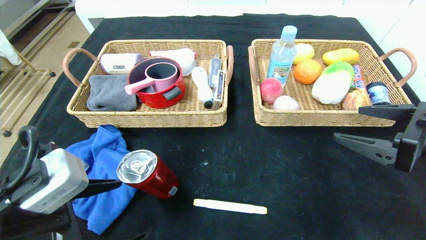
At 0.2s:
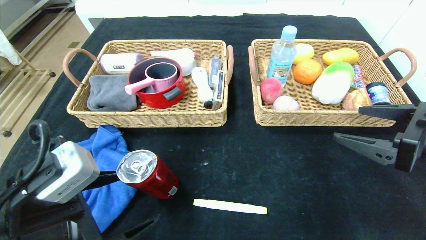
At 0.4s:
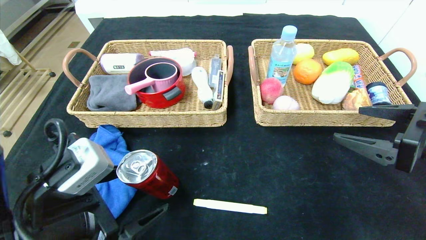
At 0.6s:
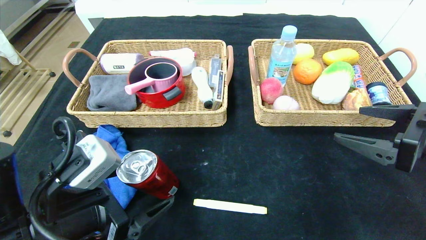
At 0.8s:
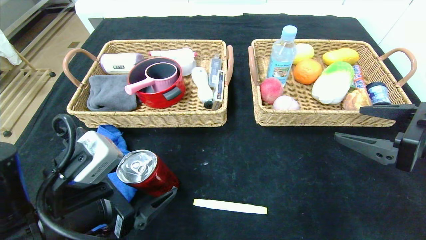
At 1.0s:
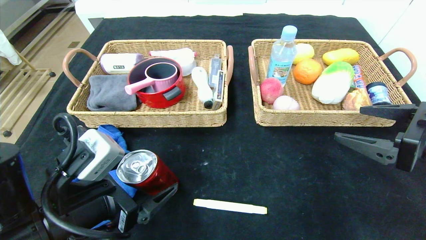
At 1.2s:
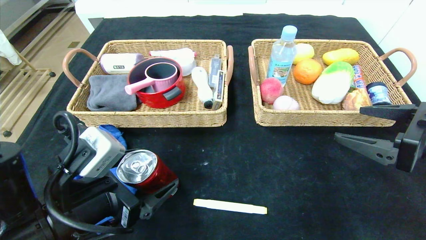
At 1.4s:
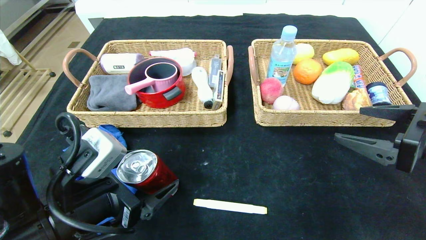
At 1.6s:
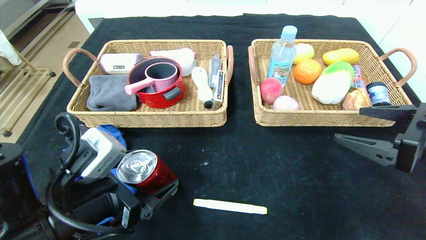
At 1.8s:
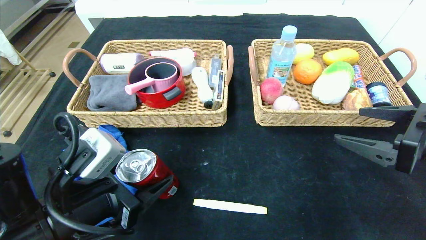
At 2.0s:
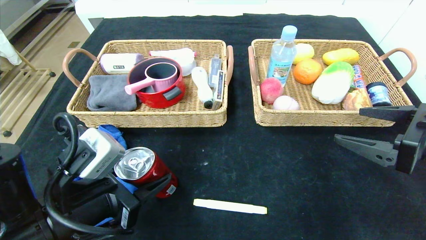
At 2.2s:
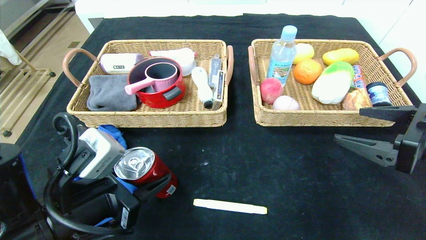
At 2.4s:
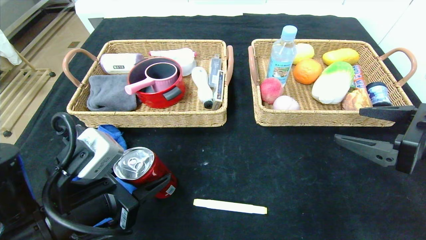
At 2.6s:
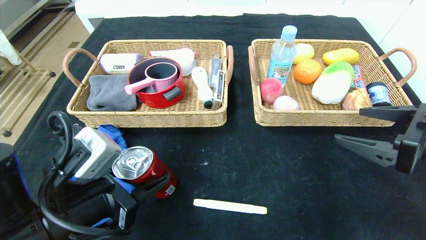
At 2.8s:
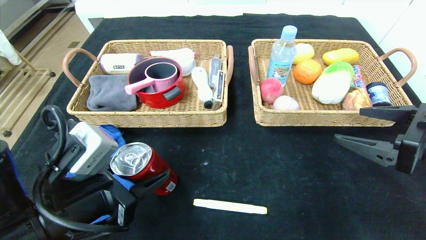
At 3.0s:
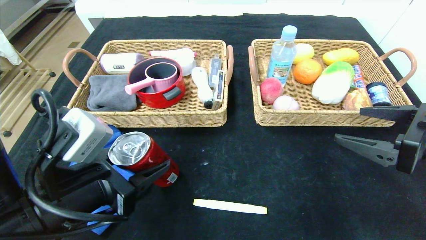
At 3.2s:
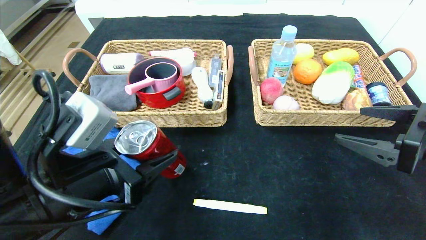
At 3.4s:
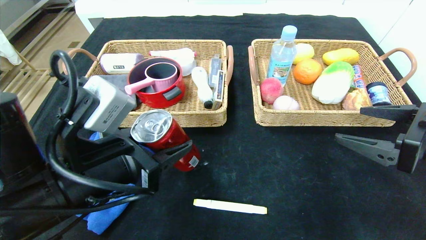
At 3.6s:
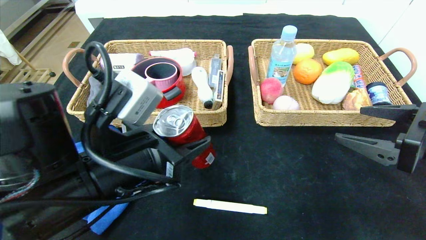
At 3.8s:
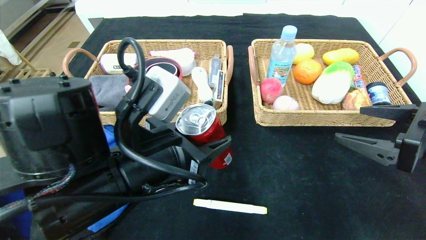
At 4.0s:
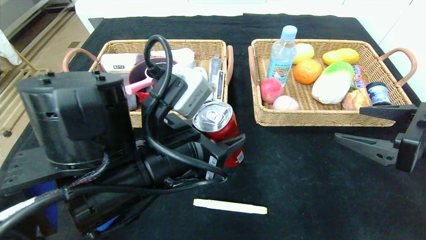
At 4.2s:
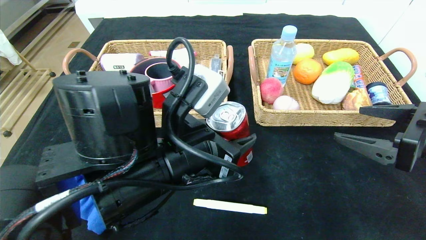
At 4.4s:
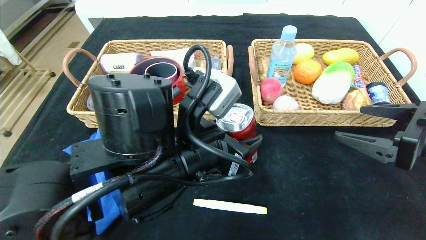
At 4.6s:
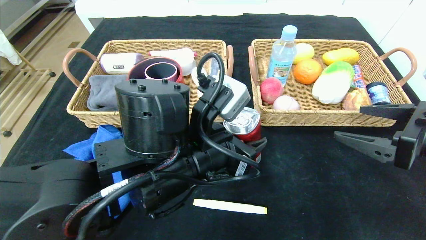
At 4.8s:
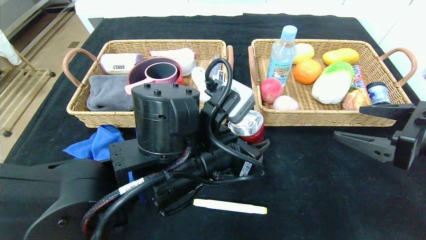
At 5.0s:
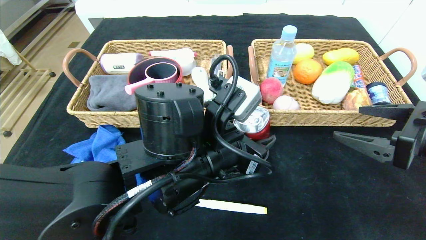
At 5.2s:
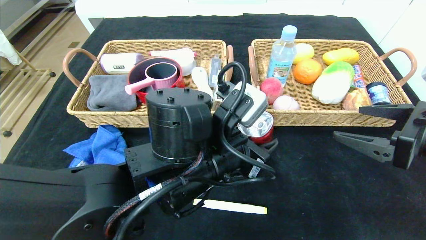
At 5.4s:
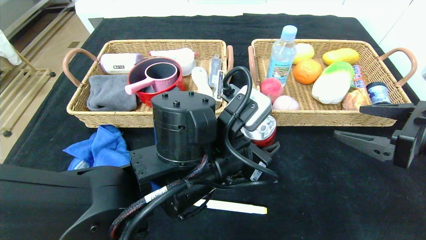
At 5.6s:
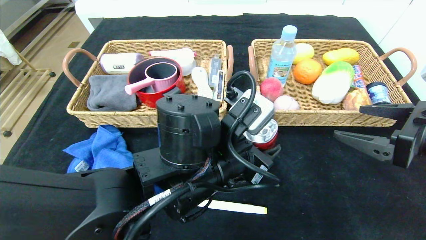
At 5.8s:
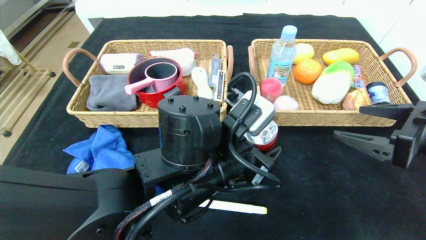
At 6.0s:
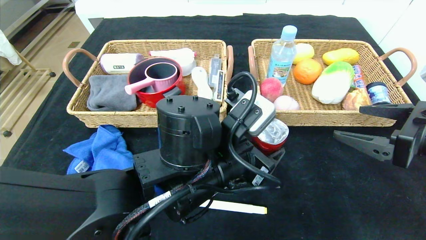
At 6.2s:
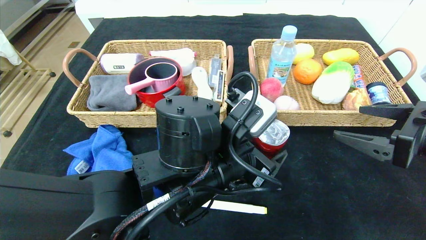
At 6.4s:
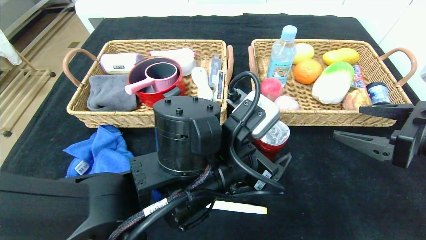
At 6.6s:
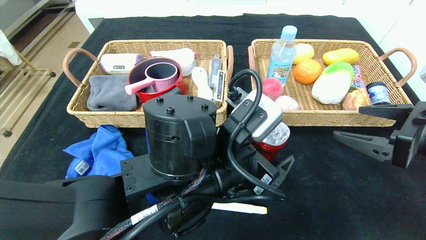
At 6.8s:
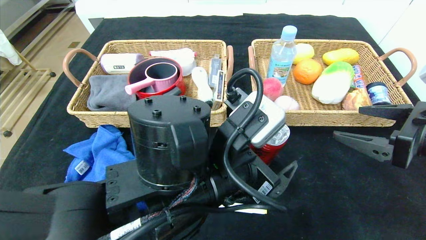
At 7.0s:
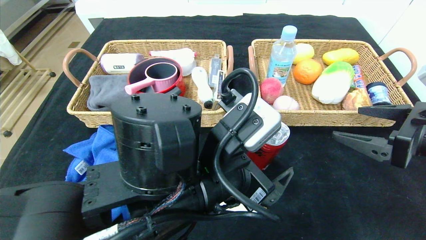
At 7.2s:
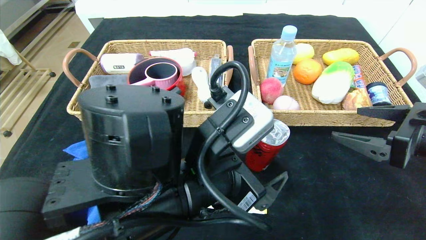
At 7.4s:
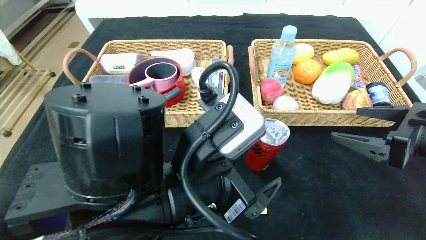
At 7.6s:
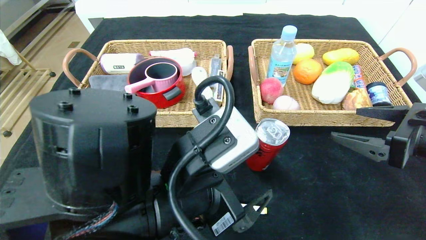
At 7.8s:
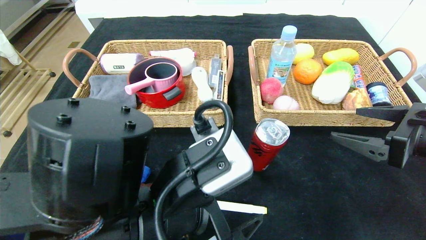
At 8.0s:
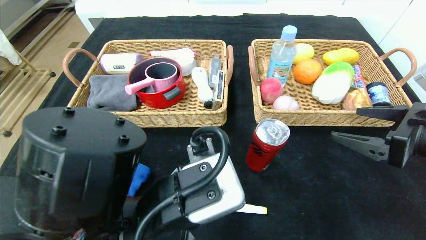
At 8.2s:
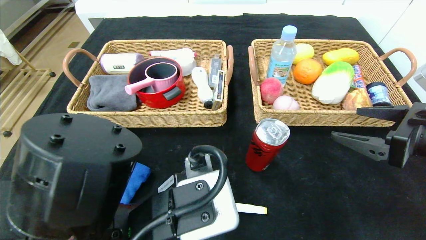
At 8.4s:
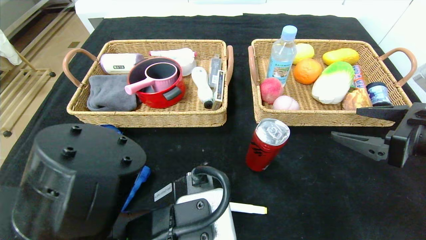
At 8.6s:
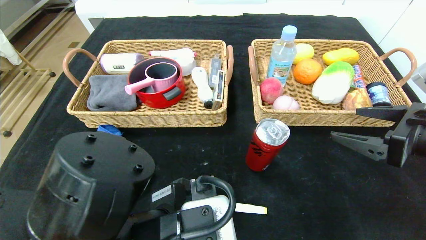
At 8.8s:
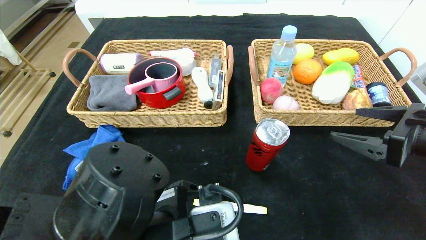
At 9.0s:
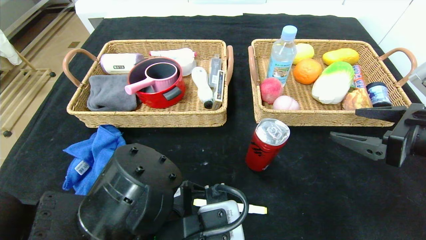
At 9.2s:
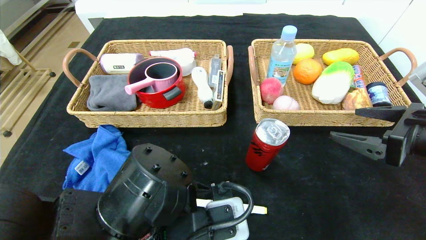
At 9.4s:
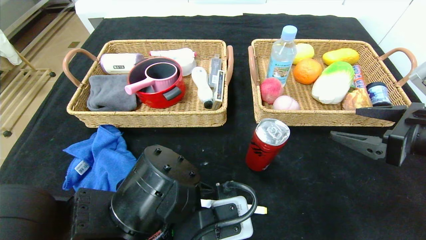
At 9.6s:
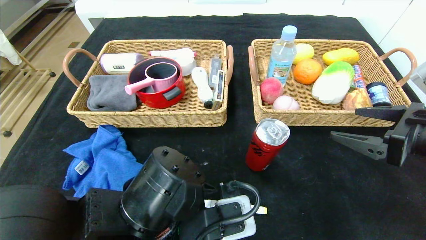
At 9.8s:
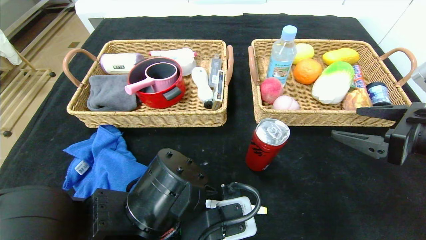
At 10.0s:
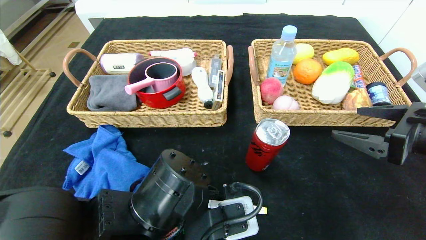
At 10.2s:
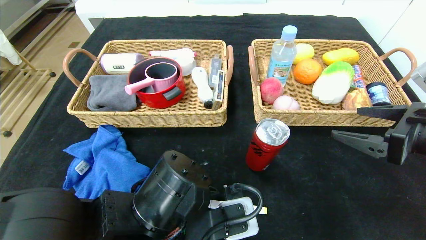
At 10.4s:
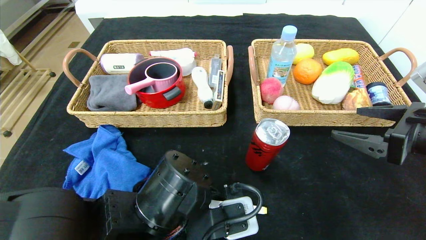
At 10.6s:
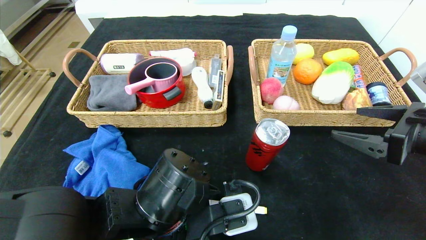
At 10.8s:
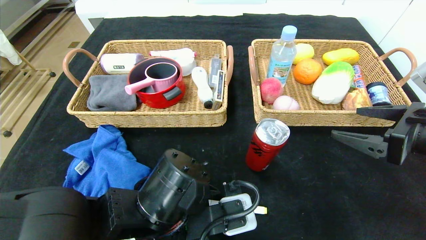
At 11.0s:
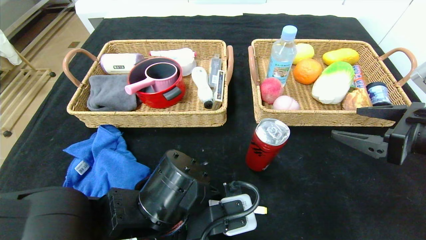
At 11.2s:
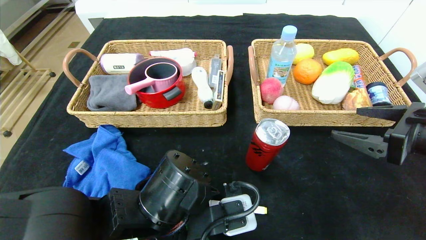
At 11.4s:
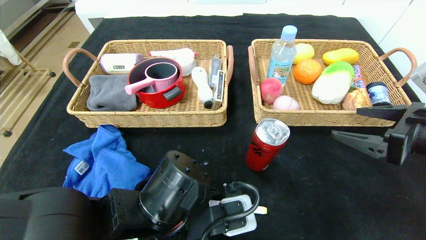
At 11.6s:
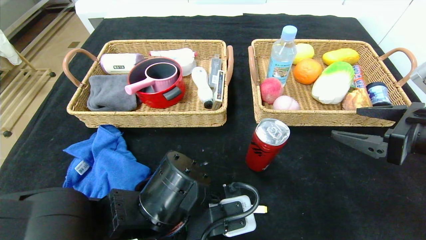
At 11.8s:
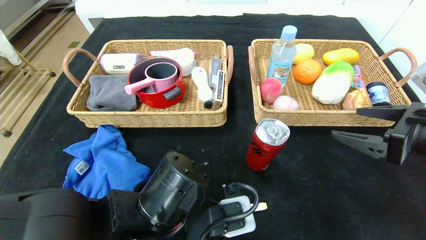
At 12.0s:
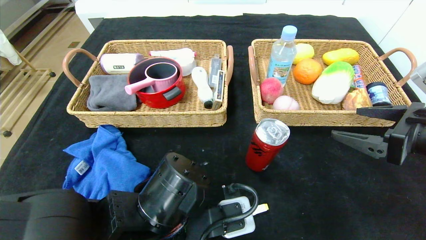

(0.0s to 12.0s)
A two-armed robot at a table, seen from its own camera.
Step, 0.0s - 6.4s: Place the canned cola in the center of the table.
0.0s - 1.6s: The left gripper ends up some 5 cm from where it was.
1.6s - 3.0s: The left gripper closes up.
3.0s - 4.4s: The left gripper goes some 15 cm to the right.
6.0s - 7.6s: The left gripper travels backward by roughly 5 cm.
7.6s - 9.0s: The left gripper shifts by some 5 cm.
9.0s - 10.4s: There are only small adjustments of the grippers.
10.4s - 12.0s: The left gripper closes up.

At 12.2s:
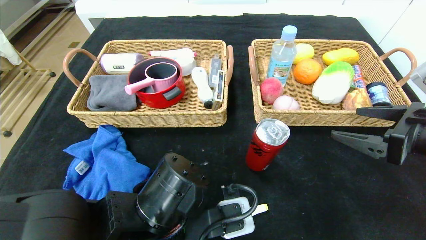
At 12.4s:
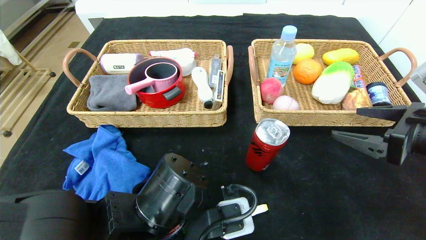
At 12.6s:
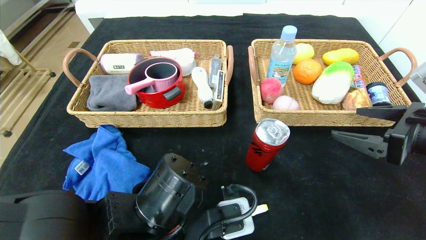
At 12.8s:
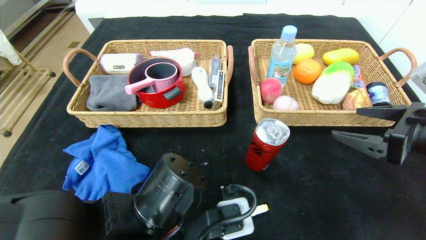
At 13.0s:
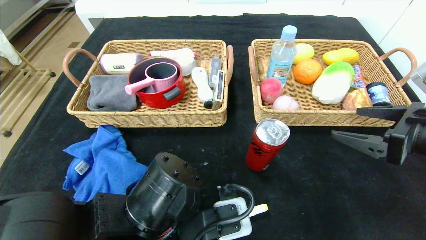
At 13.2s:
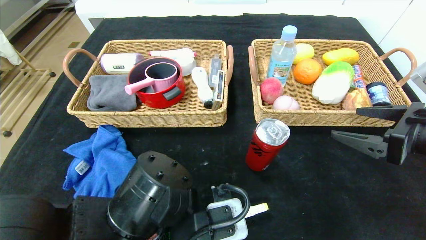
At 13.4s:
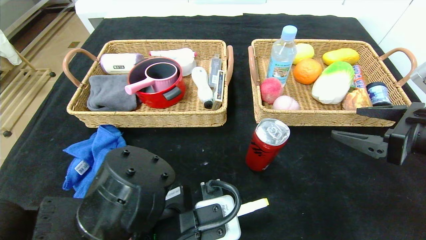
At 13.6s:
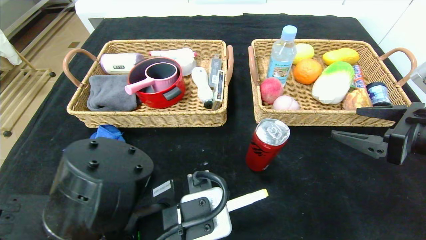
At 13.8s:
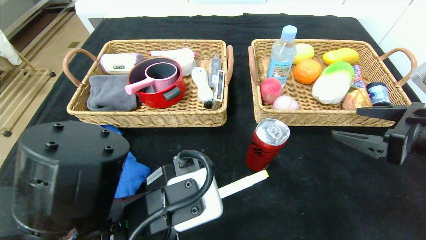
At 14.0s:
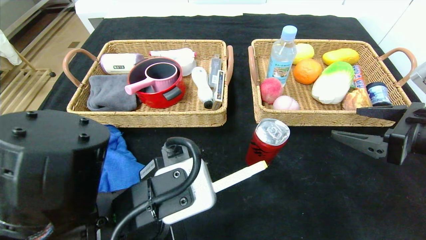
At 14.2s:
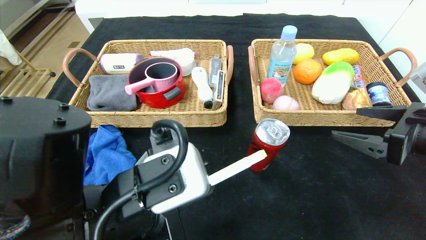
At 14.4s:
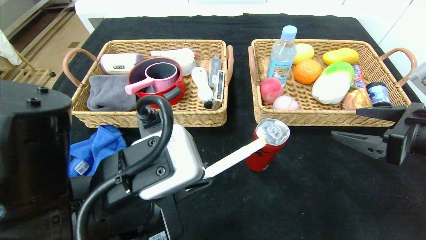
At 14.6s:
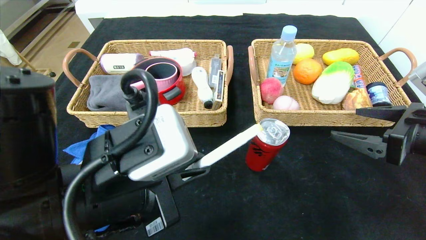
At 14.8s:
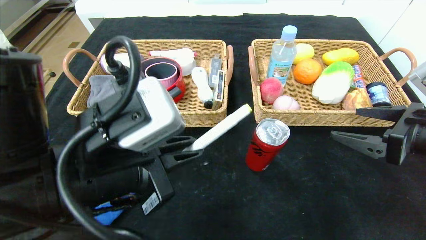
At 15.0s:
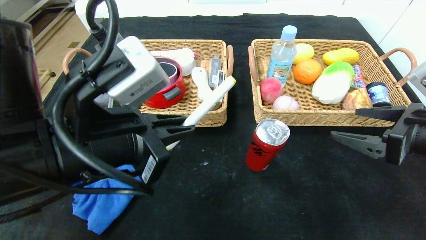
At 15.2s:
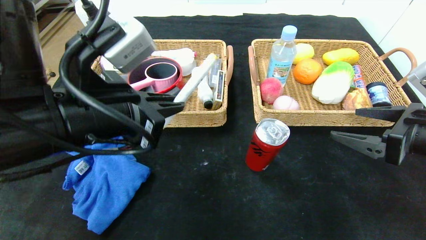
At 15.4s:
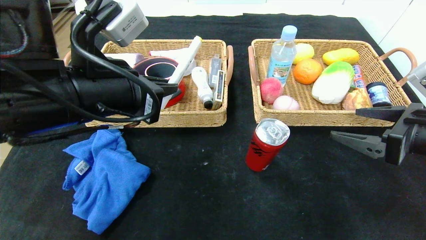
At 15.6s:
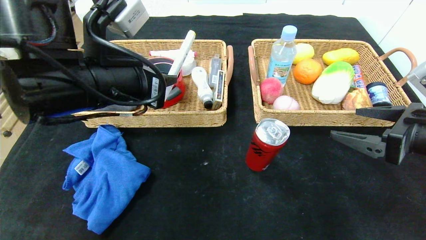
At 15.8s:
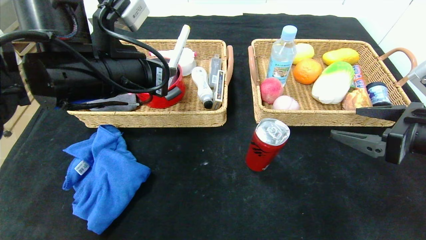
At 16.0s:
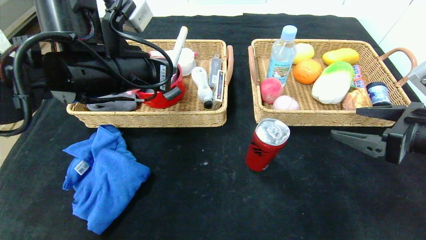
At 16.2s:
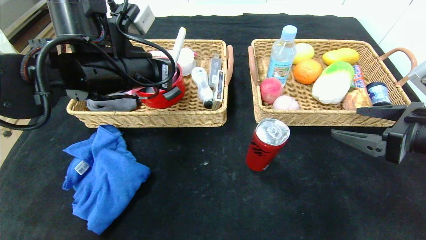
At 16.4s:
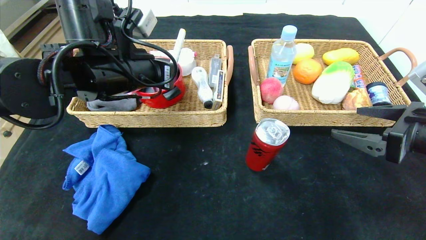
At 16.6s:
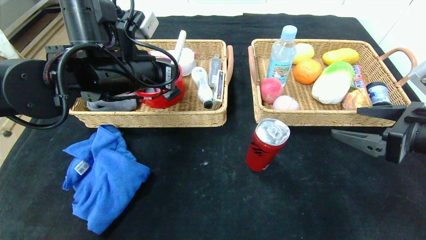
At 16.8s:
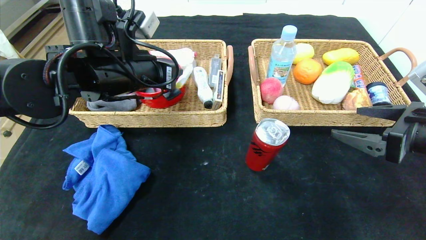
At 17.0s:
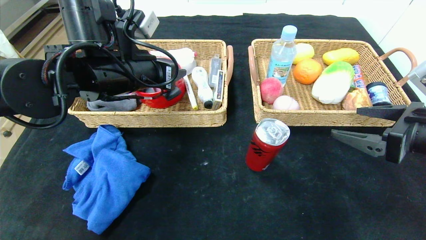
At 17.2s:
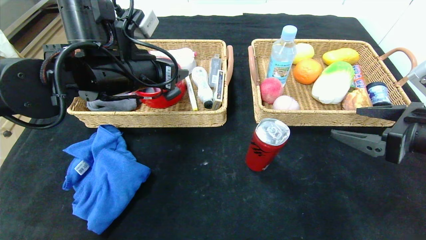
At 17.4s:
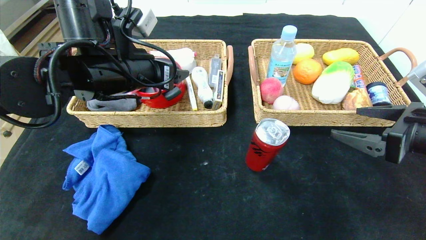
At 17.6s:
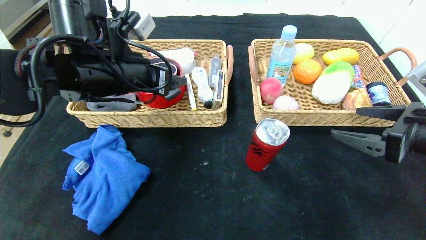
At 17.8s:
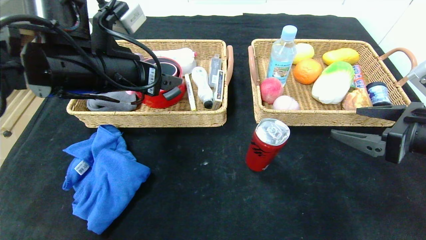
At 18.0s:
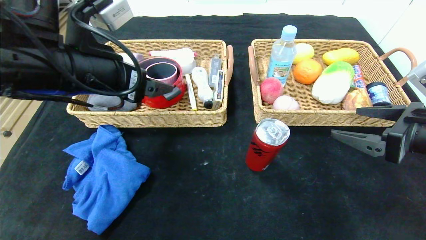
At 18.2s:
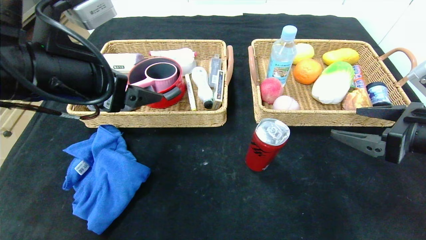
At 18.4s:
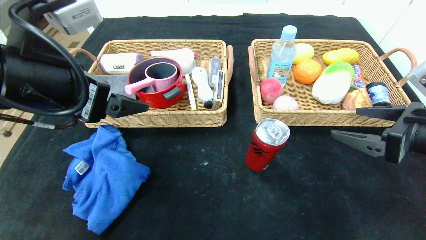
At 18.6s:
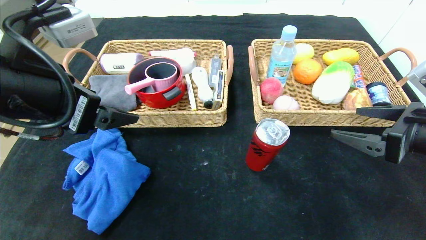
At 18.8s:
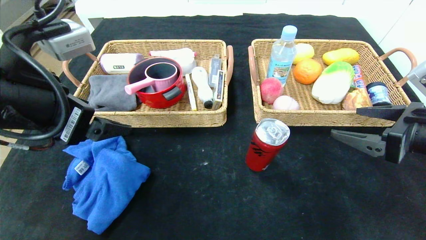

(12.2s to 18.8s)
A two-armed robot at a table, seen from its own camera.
Step, 12.2s - 17.0s: Grasp the yellow marker and put it in the left basket.
12.2s - 13.8s: The left gripper shifts approximately 5 cm upward.
13.8s - 15.4s: The left gripper travels upward and forward by roughly 15 cm.
15.4s - 17.2s: The left gripper goes some 10 cm forward, and opens up.
17.2s - 18.8s: The left gripper heads backward, covering approximately 15 cm.
